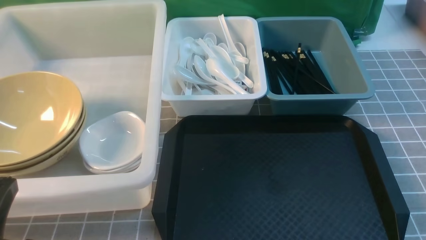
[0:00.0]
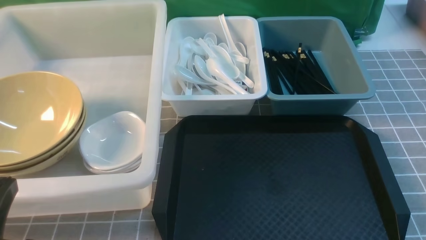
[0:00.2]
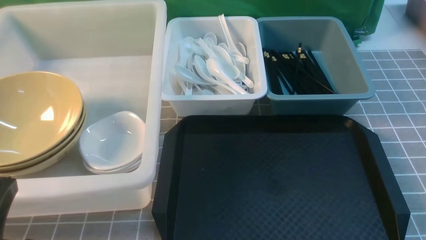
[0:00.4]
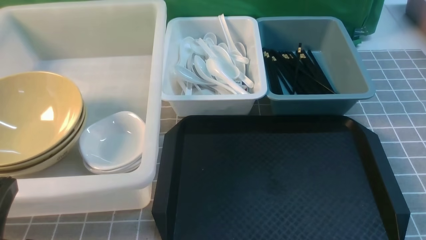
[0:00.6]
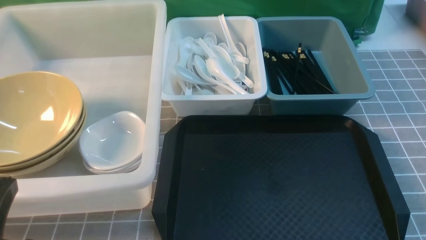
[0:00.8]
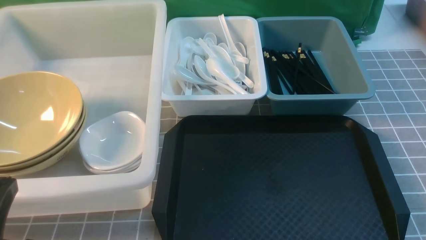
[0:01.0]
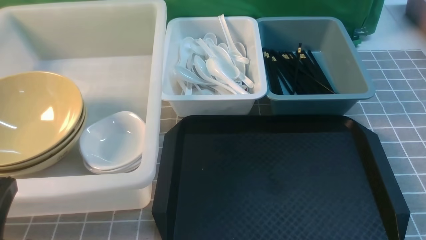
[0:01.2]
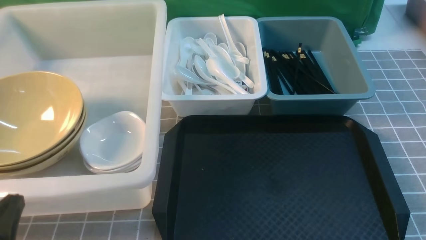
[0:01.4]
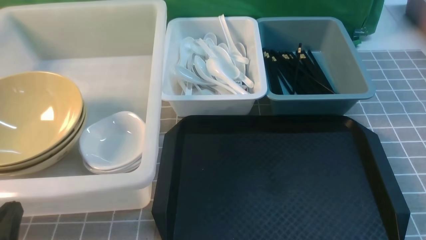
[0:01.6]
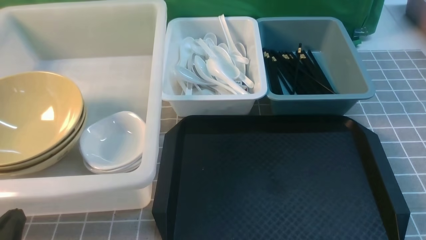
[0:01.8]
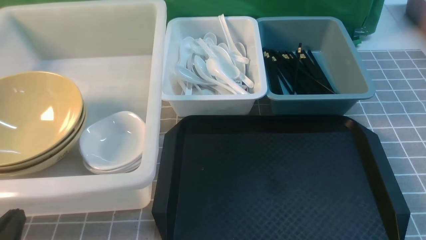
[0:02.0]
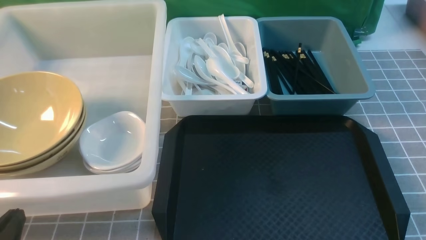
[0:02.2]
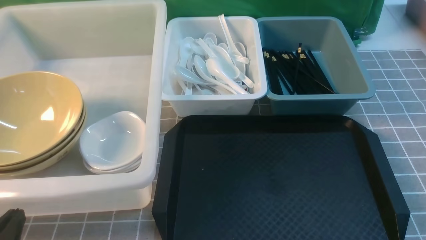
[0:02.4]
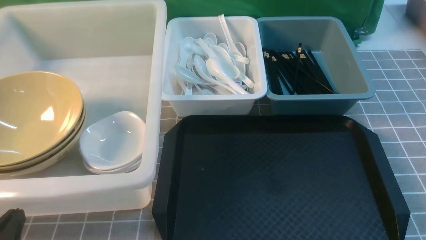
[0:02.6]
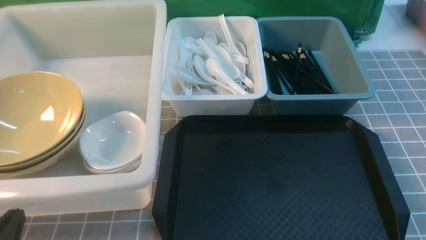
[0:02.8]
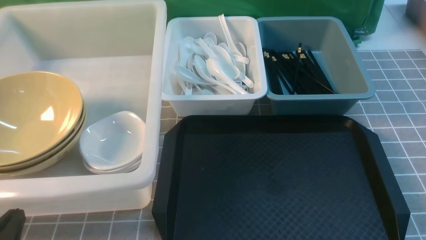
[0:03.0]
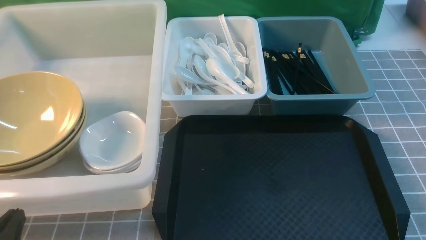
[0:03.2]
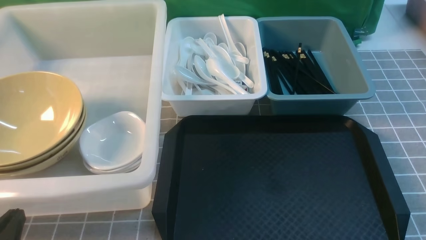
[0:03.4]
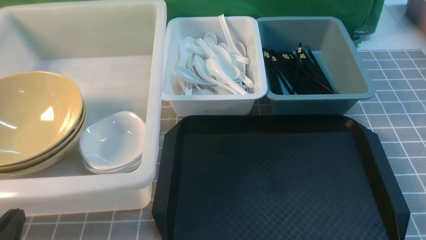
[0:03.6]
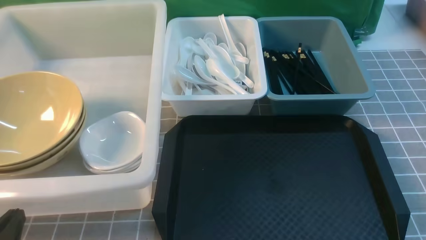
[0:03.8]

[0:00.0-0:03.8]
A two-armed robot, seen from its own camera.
Task of the whole recording: on grey table put chopsticks spoon bowls plates into blue grey white boxes.
0:01.2 to 0:02.6: The left gripper heads downward, covering approximately 5 cm.
0:02.6 to 0:03.8: Both grippers stay about where they are.

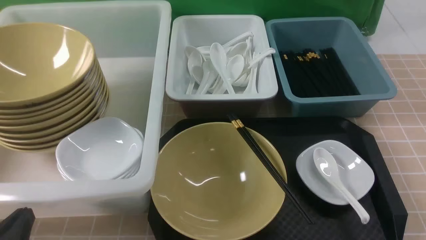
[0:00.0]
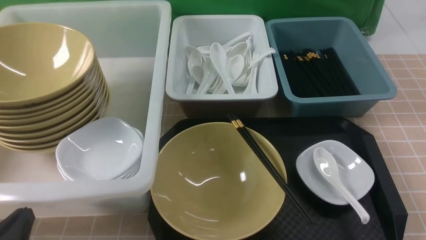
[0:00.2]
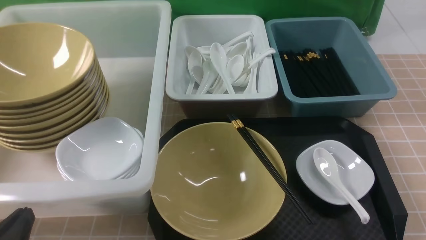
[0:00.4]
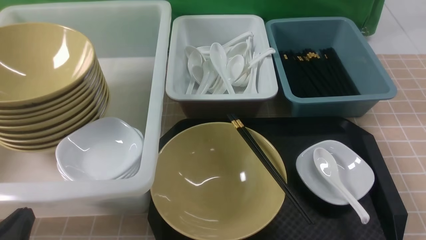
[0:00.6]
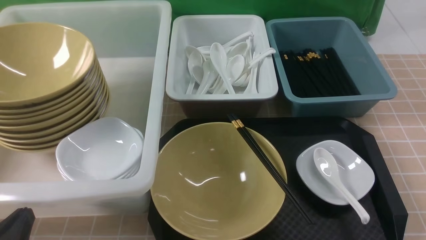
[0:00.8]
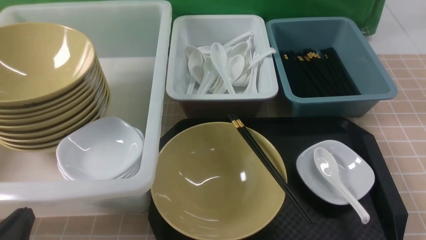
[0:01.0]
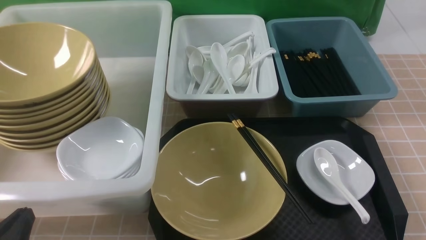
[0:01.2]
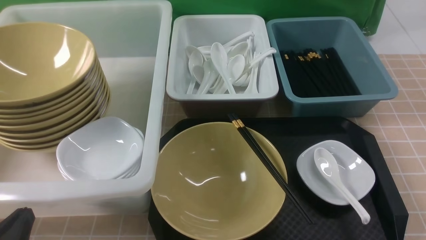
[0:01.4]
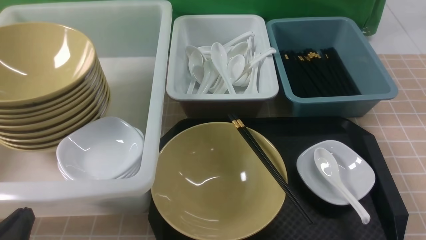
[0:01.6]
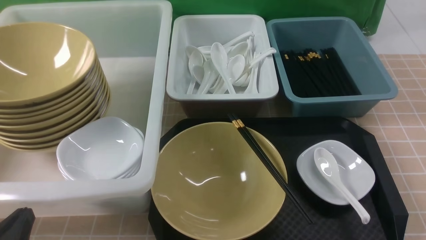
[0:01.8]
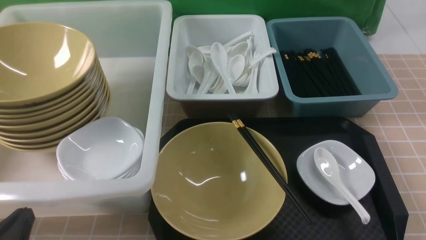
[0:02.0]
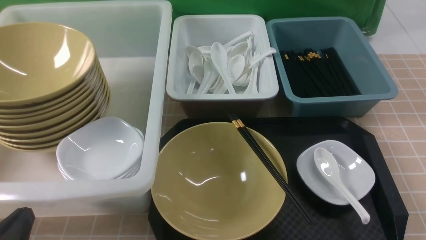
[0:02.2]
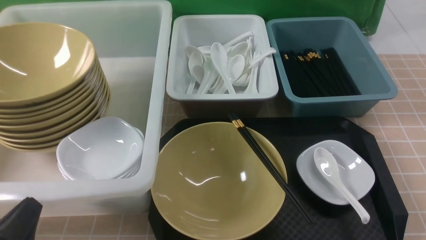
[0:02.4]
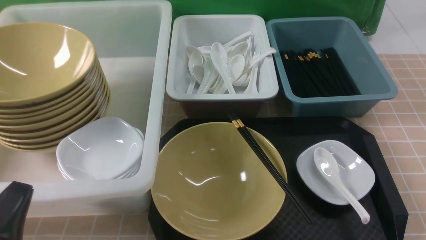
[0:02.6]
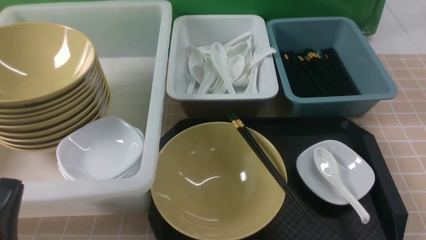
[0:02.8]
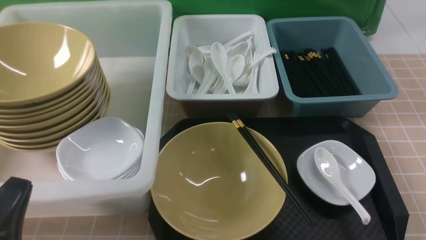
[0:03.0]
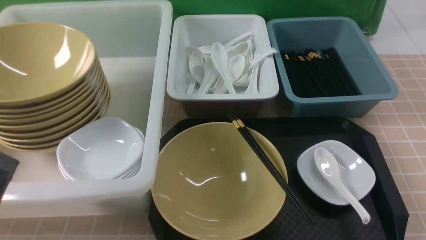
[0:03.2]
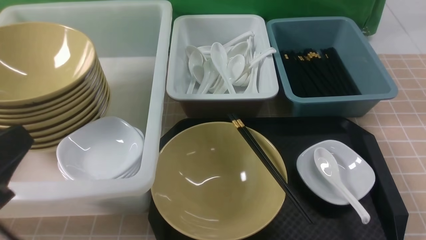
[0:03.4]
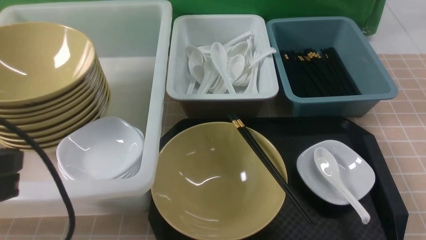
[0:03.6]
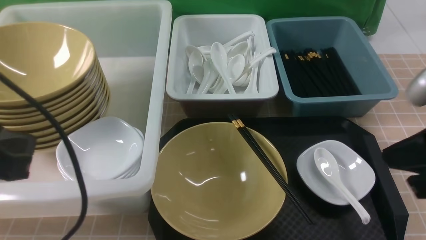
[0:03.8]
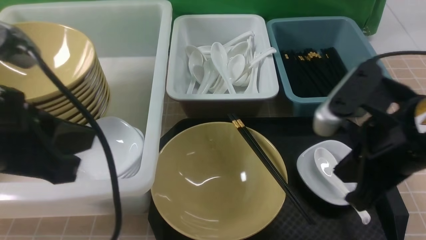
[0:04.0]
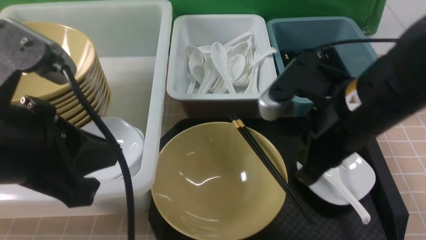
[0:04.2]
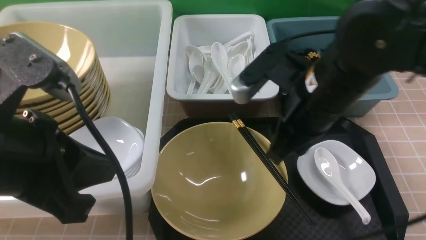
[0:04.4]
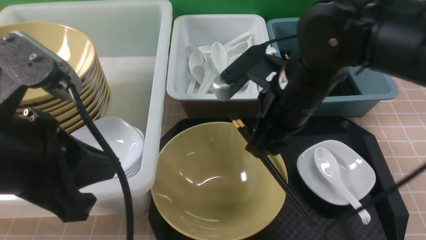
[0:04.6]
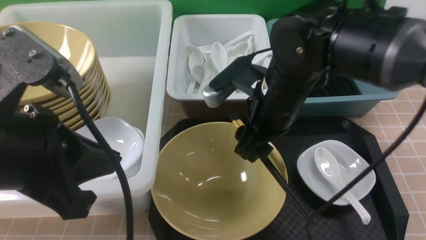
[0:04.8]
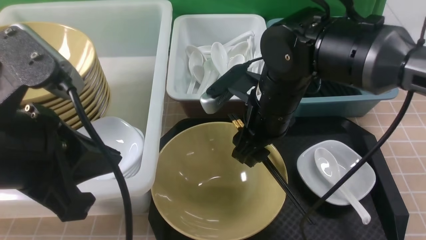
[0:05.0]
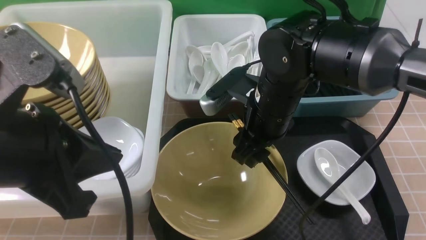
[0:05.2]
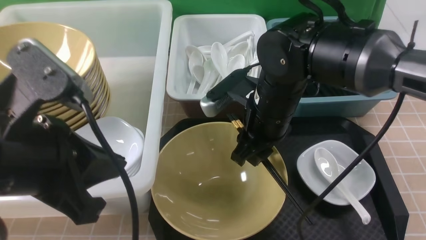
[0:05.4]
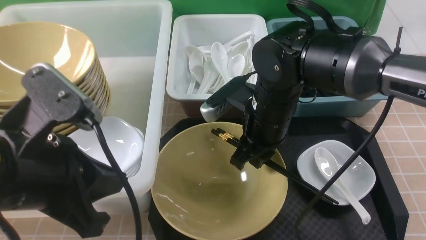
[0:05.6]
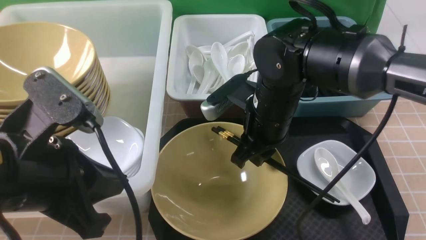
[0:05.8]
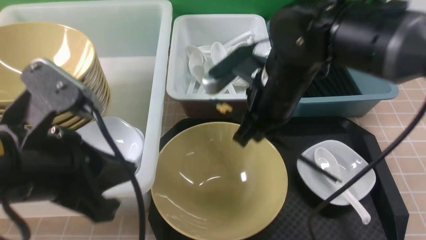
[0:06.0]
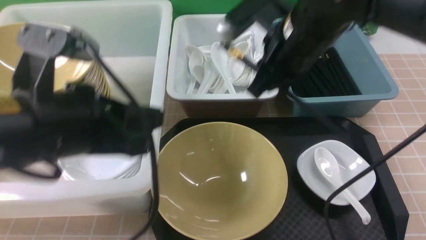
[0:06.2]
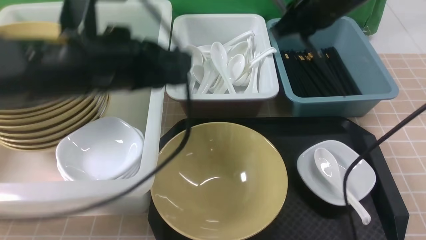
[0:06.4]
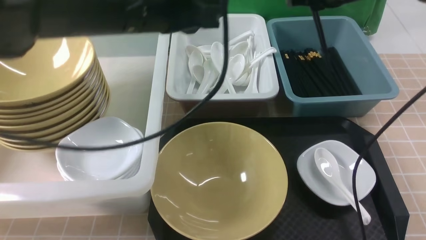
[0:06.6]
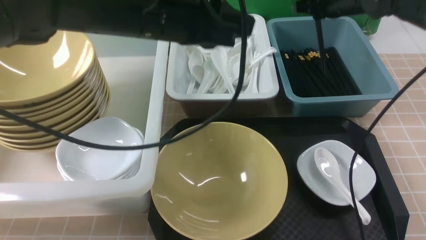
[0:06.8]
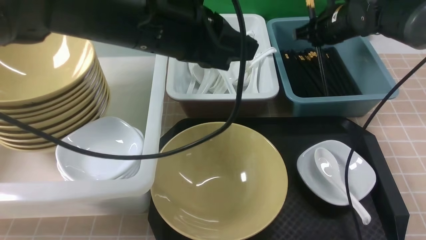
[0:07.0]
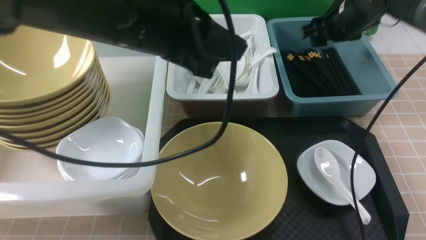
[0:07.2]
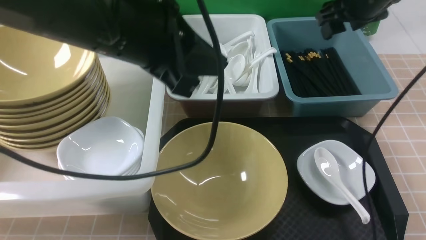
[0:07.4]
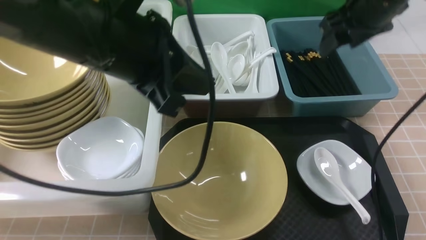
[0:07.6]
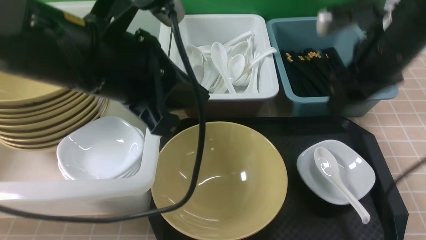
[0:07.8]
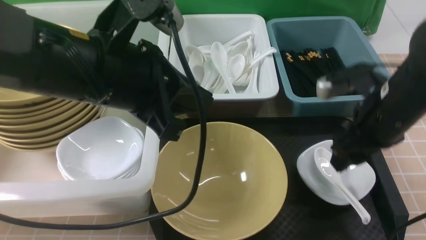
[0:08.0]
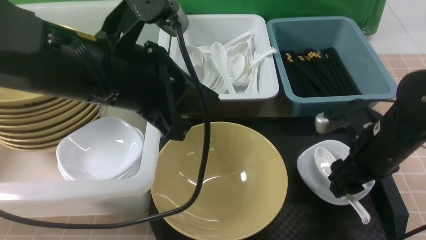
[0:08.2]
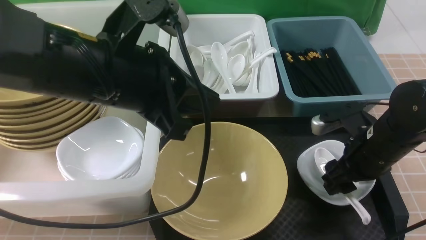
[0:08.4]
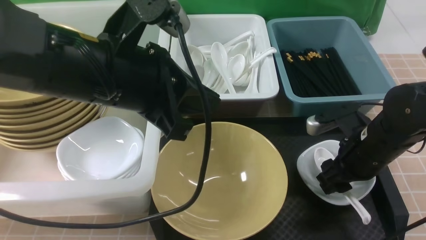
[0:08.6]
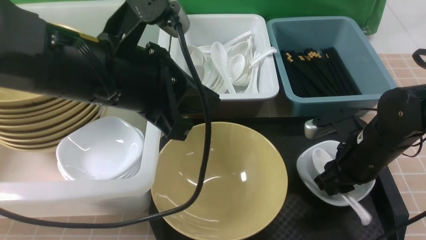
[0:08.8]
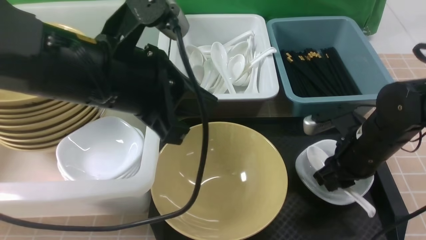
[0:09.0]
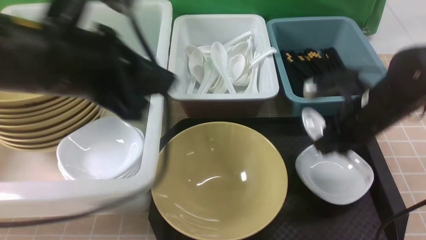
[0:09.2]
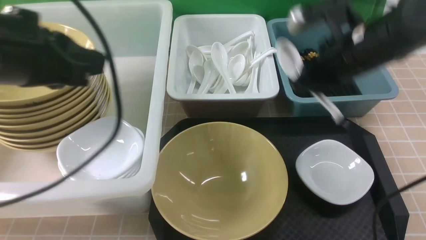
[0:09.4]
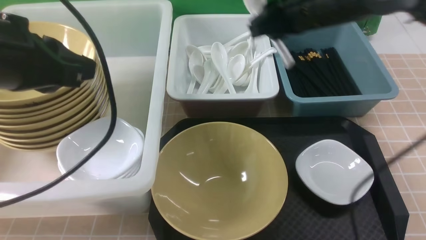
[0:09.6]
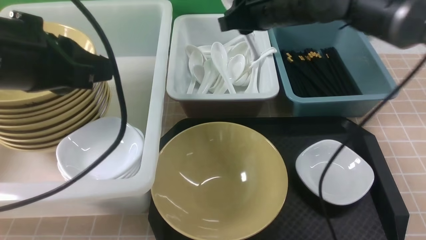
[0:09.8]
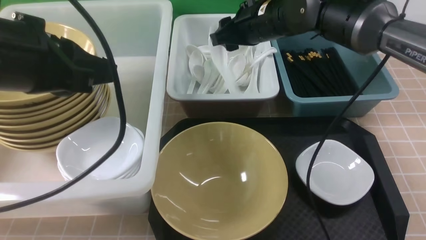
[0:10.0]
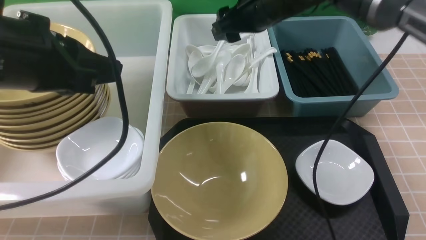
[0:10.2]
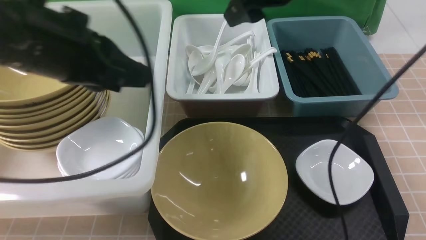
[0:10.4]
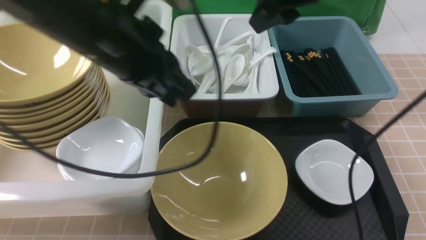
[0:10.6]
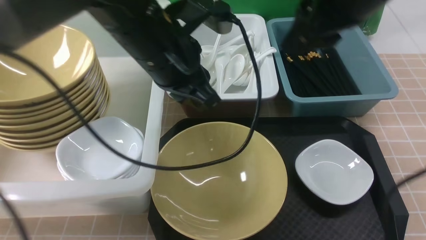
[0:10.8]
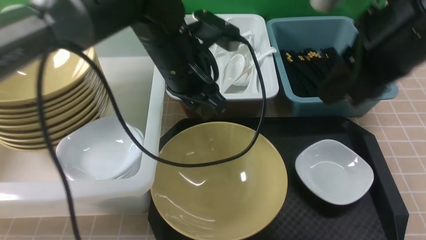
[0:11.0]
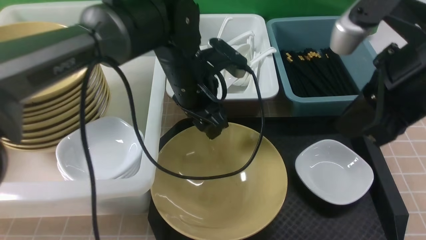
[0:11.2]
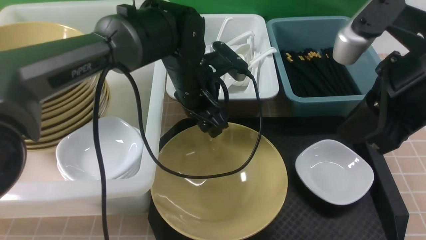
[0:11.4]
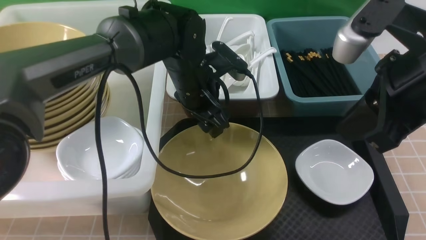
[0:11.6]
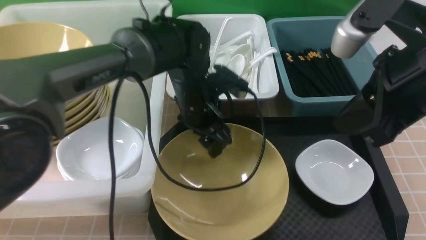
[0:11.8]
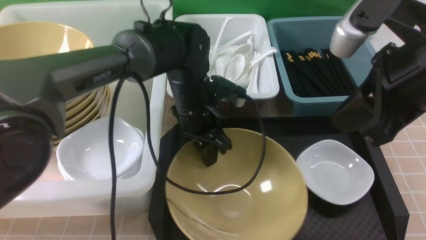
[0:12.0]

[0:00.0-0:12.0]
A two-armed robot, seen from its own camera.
Task of the whole recording: on brown table put chopsticks spoon bowls plates into blue grey white boxes.
Step, 0:00.0 to 0:05.8: use the right arm to grab the chopsticks.
Step, 0:06.0 to 0:07.2: use the right arm to put the chopsticks into the small storage box on the right.
Step, 0:07.4 to 0:09.0: use the right arm to grab the soup spoon in the middle.
Step, 0:09.2 to 0:10.0: use the right arm to put the soup spoon into the small storage box in the middle.
Step, 0:10.2 to 0:12.0: use the left arm to grab the yellow noodle bowl on the left.
0:00.0 to 0:01.6: Both grippers stay about where they are.
0:01.6 to 0:03.0: The left gripper goes some 5 cm upward.
0:03.0 to 0:04.4: The left gripper goes some 15 cm upward, forward and to the right. The right gripper travels forward, to the left and upward by some 30 cm.
0:04.4 to 0:06.0: The right gripper heads forward, covering about 5 cm, and opens, then closes again.
0:06.0 to 0:07.6: The right gripper travels to the right and forward by about 15 cm, and opens up, while the left gripper moves forward, to the right and upward, about 10 cm.
0:07.6 to 0:09.0: The right gripper shifts some 15 cm downward and backward, and closes its fingers.
0:09.0 to 0:10.4: The right gripper heads upward, to the left and forward, covering roughly 25 cm, and opens.
0:10.4 to 0:12.0: The right gripper shifts approximately 20 cm backward and to the right, and closes up. Meanwhile the left gripper goes approximately 25 cm downward, to the right and forward, and opens and closes again.
